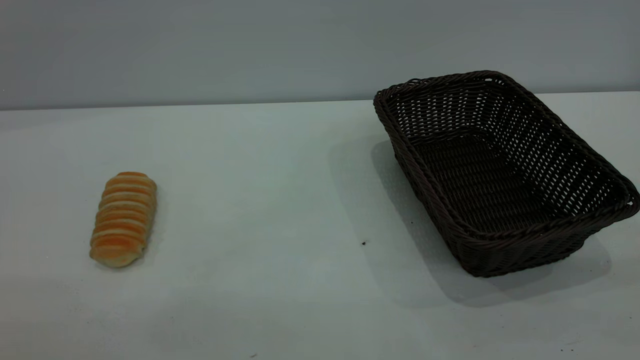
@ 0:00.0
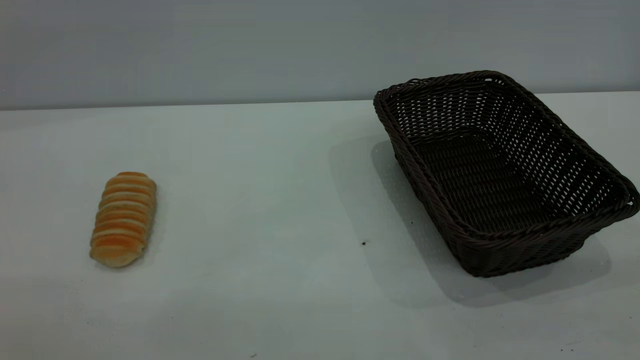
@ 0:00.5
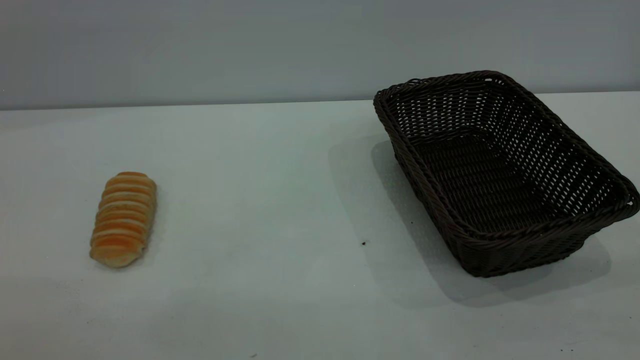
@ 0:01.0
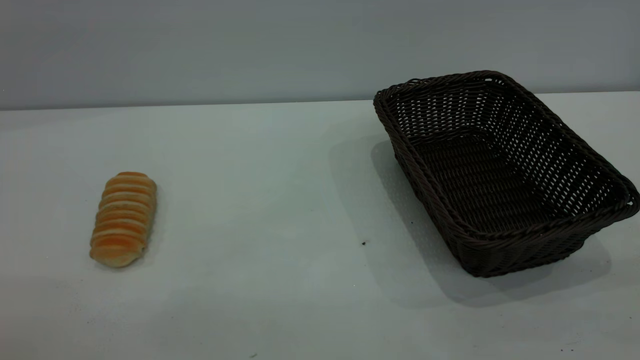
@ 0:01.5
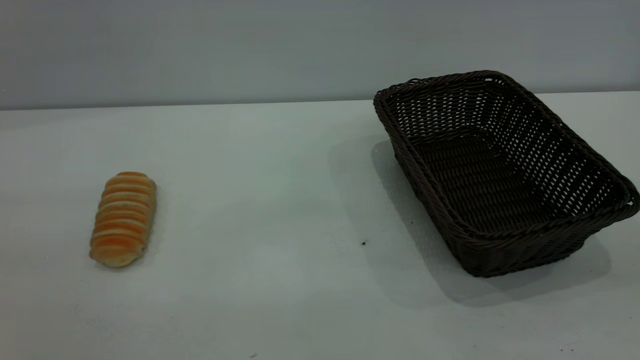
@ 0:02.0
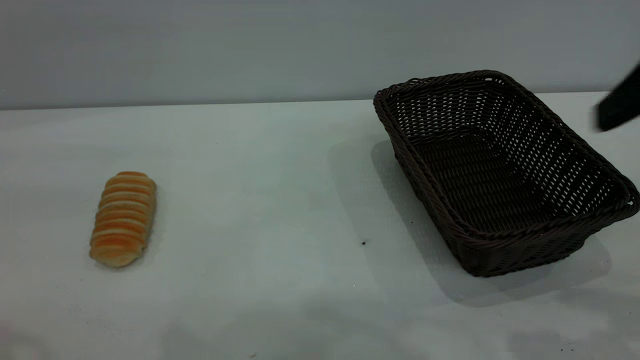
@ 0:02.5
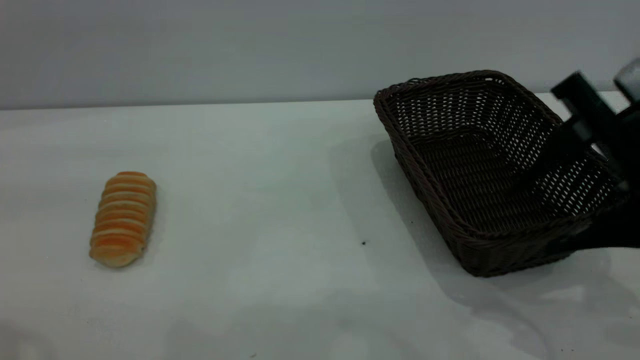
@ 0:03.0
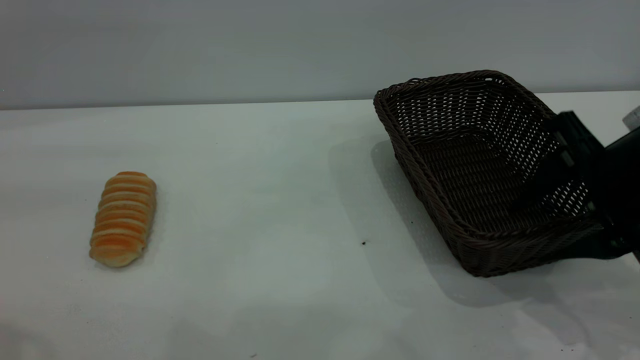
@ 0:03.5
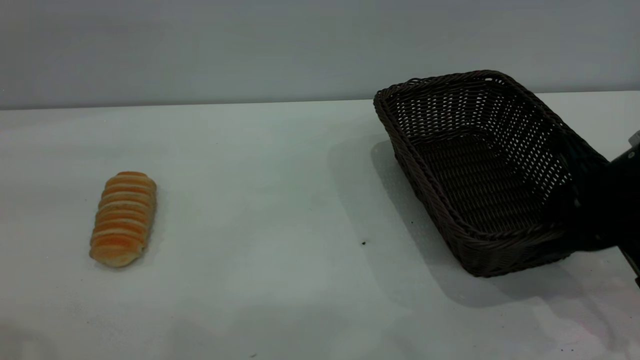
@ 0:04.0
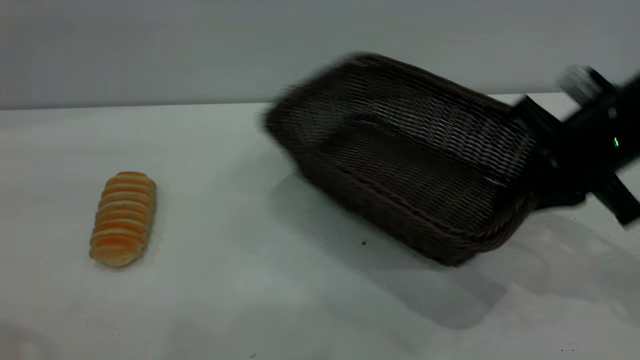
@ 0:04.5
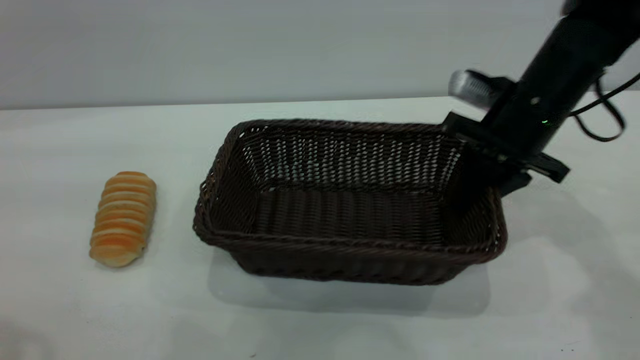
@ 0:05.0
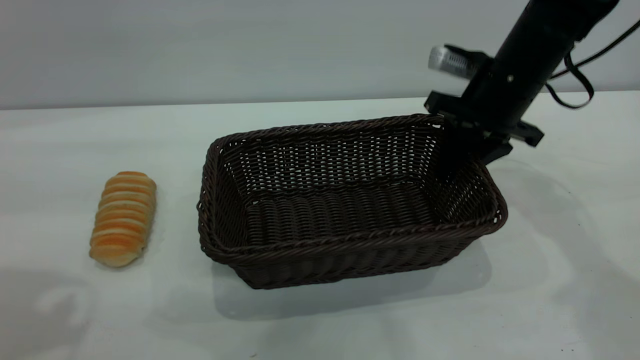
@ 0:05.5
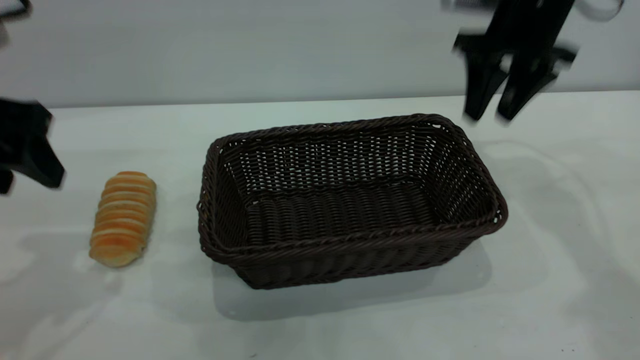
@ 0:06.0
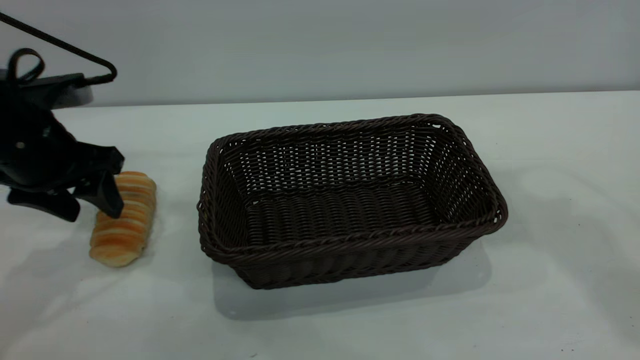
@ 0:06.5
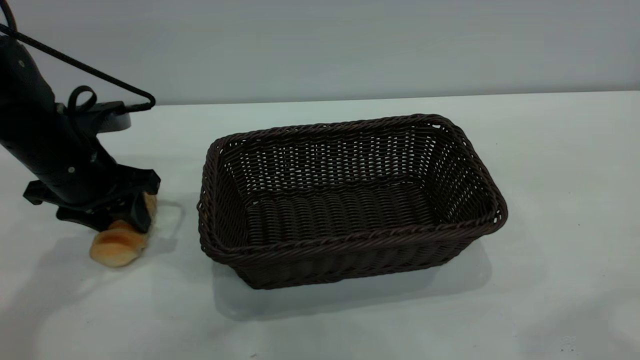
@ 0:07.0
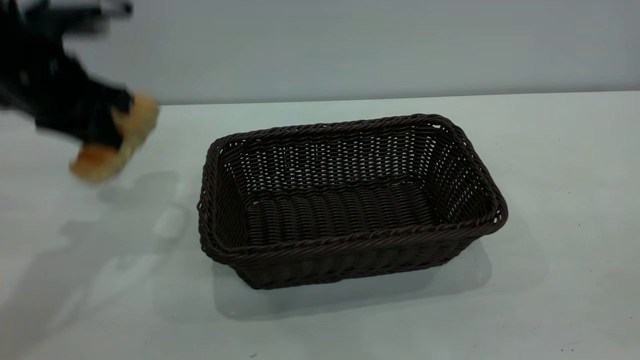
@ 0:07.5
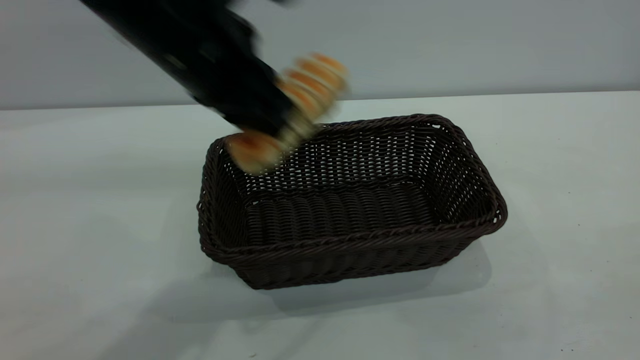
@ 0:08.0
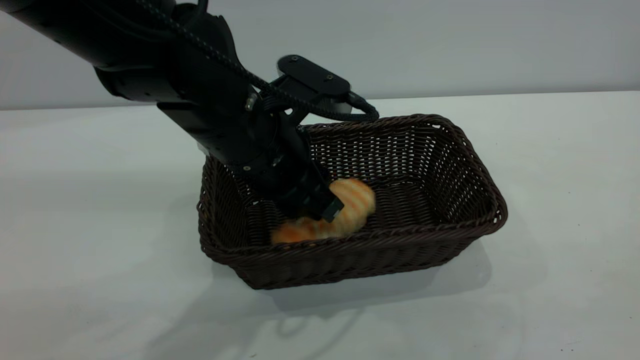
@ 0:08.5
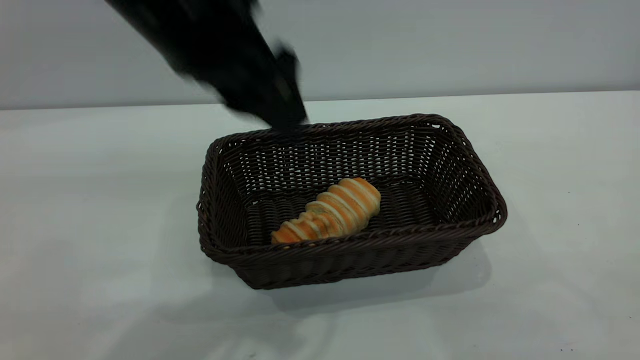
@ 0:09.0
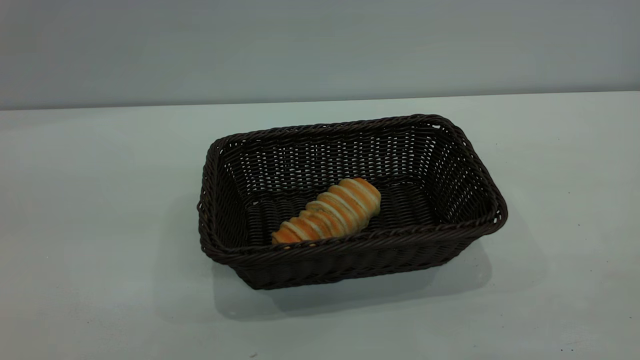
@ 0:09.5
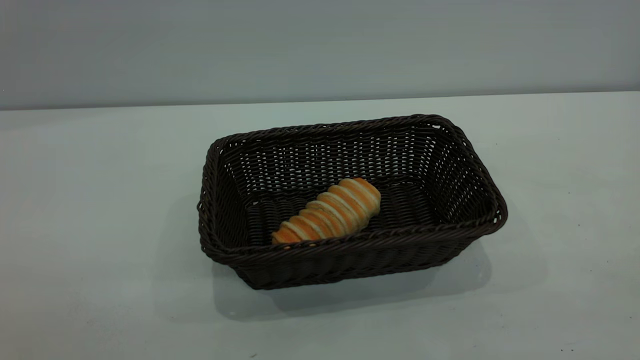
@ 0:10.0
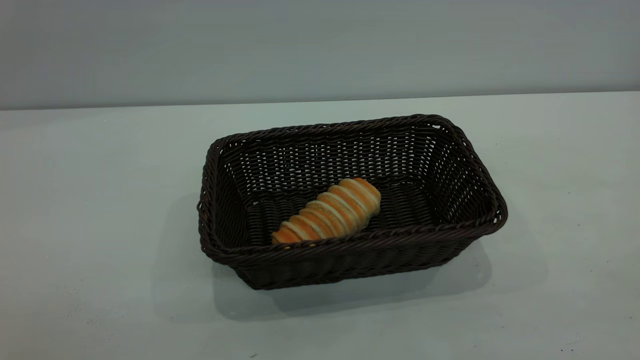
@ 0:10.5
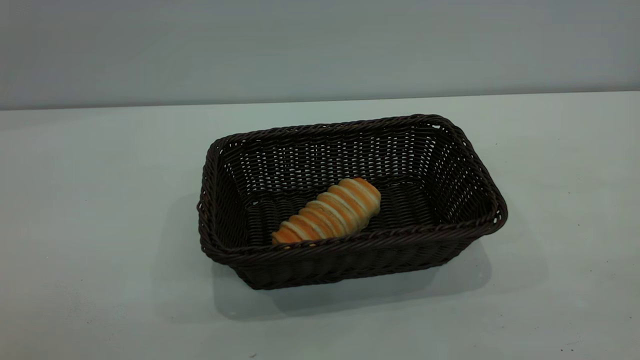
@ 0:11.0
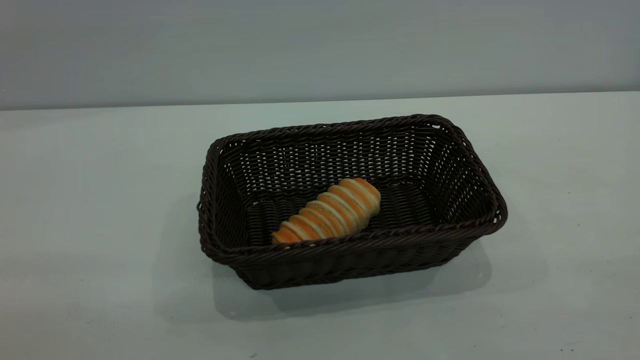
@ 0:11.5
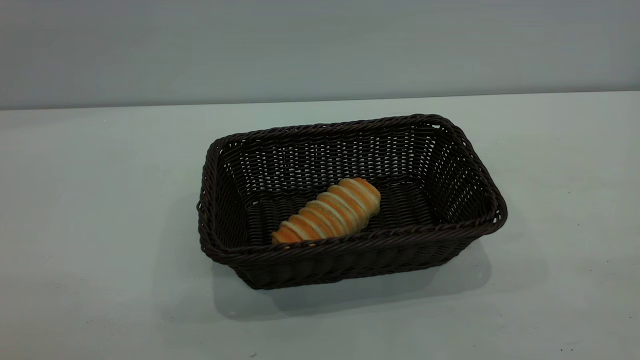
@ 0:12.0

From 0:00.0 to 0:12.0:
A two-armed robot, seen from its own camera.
Task of the whole recording: One hand grasps the black basket and places it in the middle of the table, while the other hand picks up the long bread and puts it into the black basket.
Step, from 0:00.0 to 0:05.5: Move the basket to the center of view.
Step, from 0:07.5 to 0:09.0: place the bread into the basket.
From 0:02.0 to 0:04.0: The right gripper heads downward and forward, covering about 35 cm, and closes.
From 0:04.0 to 0:06.0: The left gripper moves downward and forward, some 20 cm; the right gripper shifts some 20 cm forward and upward, and opens its fingers.
From 0:06.0 to 0:08.0: The right gripper heads backward, covering approximately 40 cm. Meanwhile the left gripper is displaced to the right by some 20 cm, and closes.
From 0:08.0 to 0:10.0: The left gripper goes approximately 35 cm backward and to the left, and opens.
